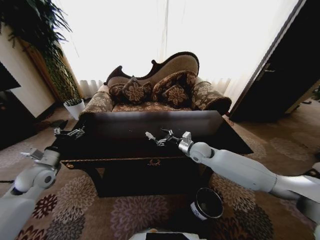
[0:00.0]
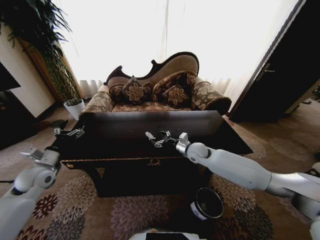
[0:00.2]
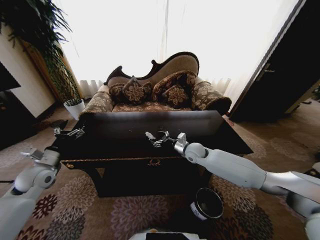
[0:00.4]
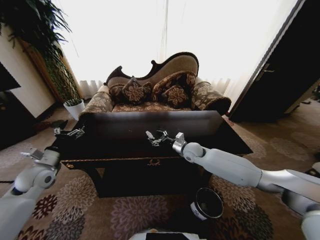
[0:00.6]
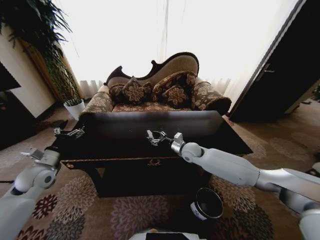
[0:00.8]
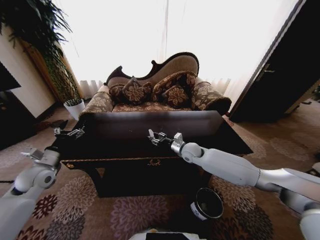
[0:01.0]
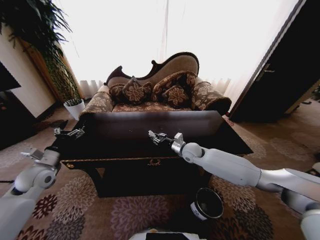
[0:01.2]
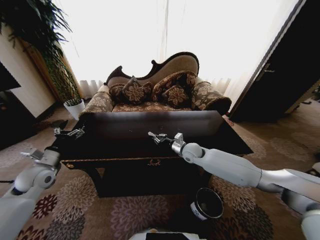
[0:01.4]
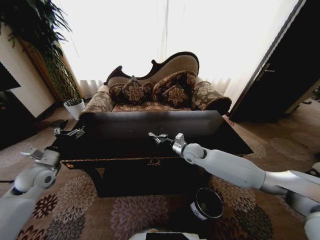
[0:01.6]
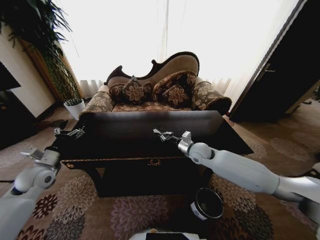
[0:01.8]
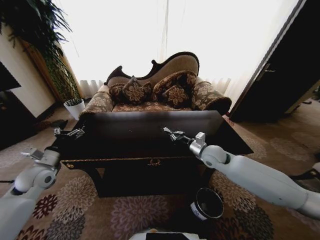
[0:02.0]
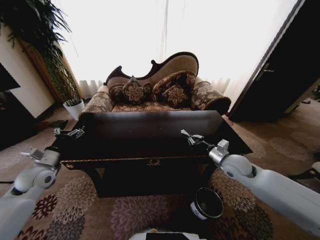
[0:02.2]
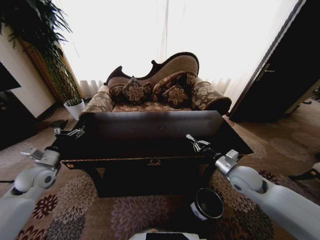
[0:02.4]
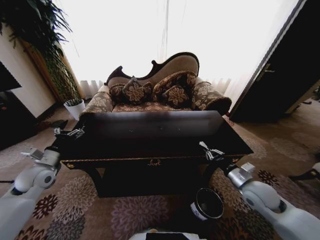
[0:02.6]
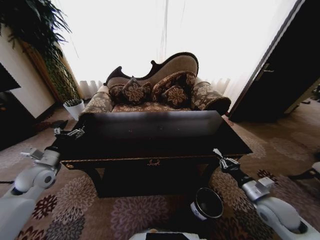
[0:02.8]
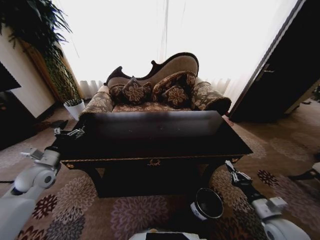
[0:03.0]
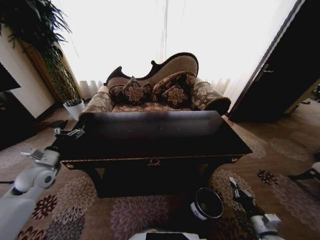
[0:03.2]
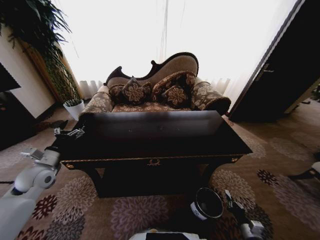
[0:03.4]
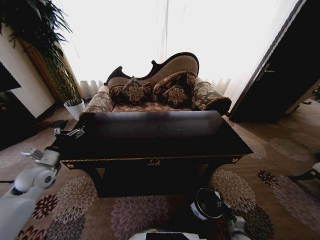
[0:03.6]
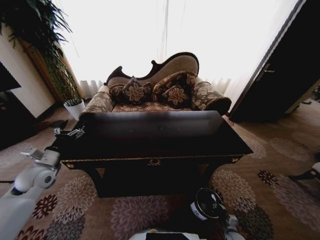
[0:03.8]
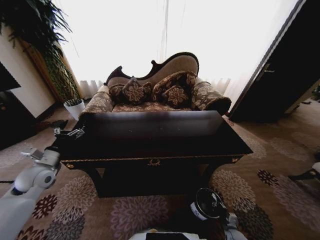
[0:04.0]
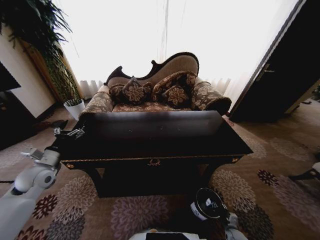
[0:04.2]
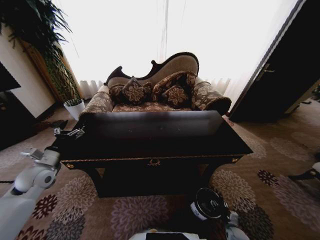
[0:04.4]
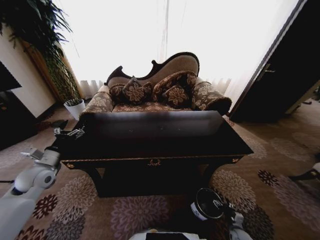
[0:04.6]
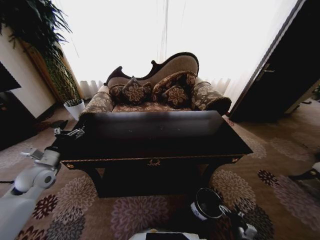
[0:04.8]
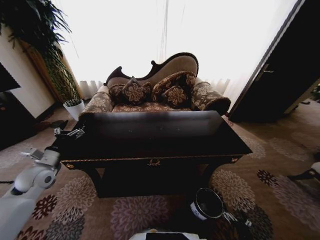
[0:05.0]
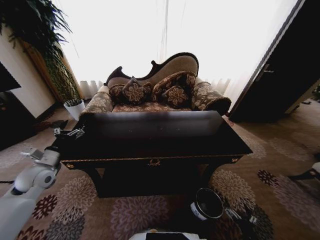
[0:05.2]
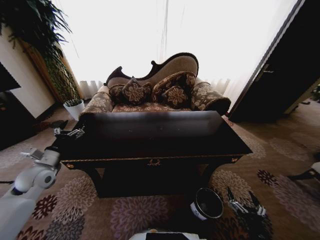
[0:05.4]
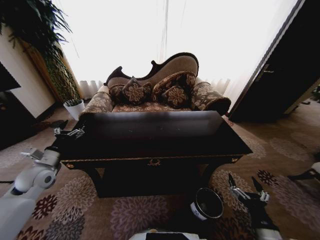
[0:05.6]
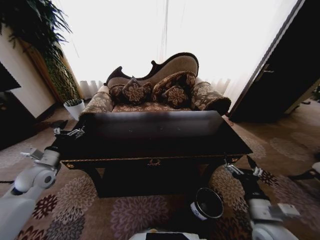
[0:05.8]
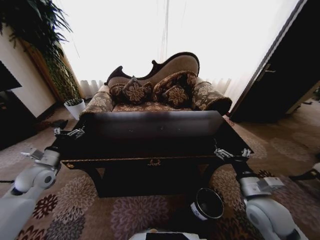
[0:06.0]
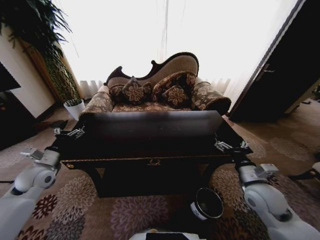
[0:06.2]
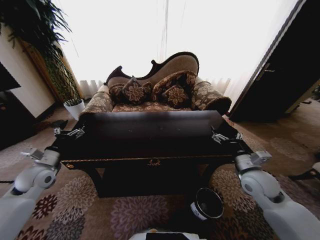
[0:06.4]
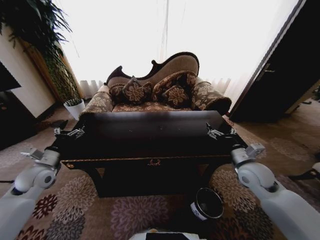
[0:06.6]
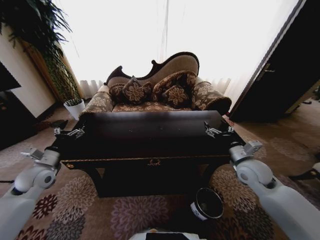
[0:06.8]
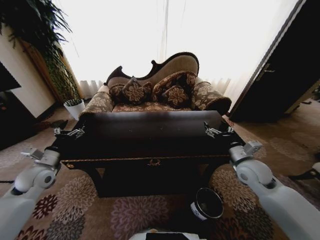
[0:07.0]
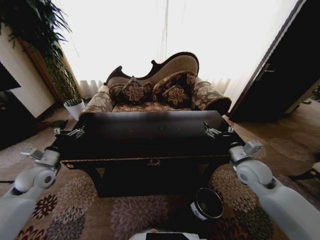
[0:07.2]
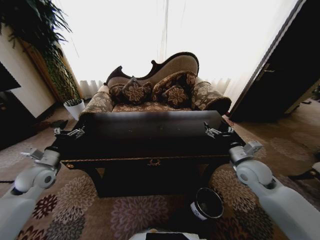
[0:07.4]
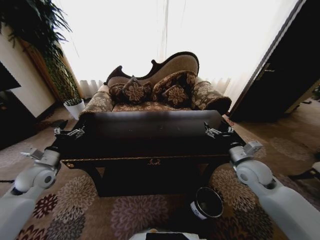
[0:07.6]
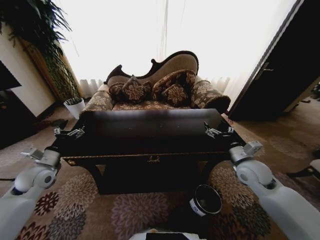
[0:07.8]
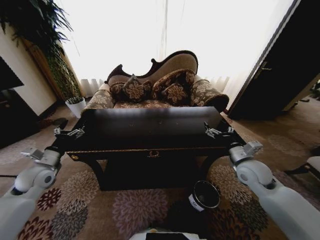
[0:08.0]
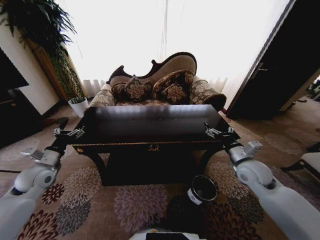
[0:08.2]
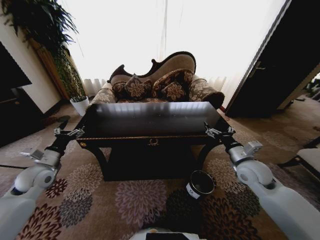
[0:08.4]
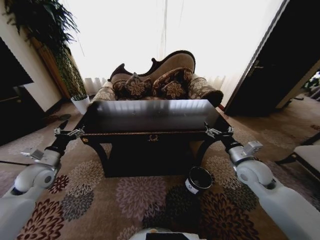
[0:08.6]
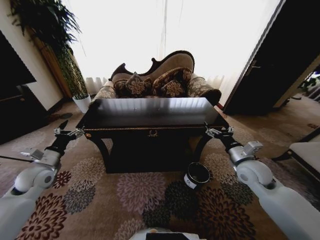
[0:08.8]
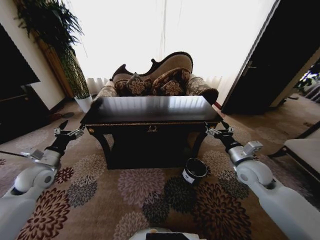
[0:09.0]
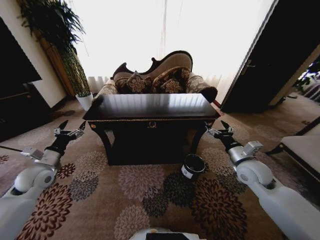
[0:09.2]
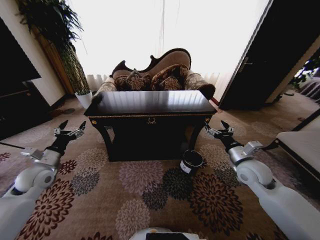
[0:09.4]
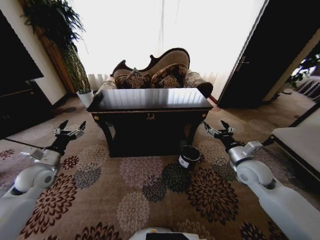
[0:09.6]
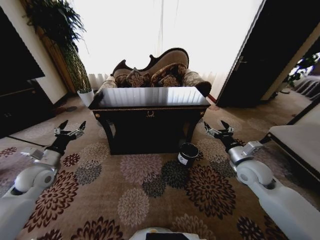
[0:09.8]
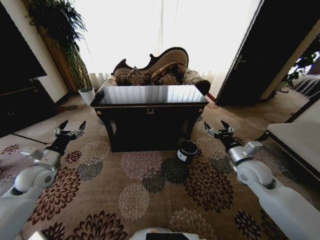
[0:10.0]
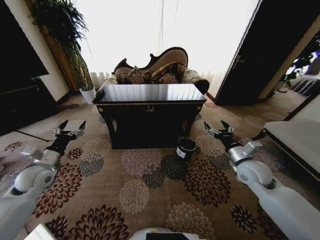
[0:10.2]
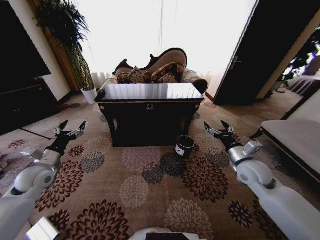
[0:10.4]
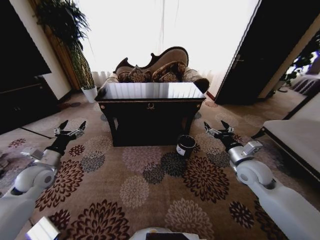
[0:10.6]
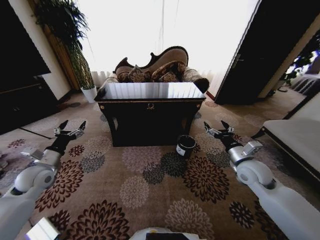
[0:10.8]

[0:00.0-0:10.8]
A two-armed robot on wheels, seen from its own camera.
Task of the whole recording: Move to the front of the table and place the trash on the table into the trash bin.
0:00.0 to 0:01.6: The right gripper closes its fingers.
0:01.6 to 0:03.0: The right gripper moves backward and to the right, some 35 cm.
0:03.0 to 0:04.6: The right gripper heads downward, covering approximately 30 cm, and opens its fingers.
0:04.6 to 0:06.2: The right gripper travels upward by approximately 40 cm.
0:06.2 to 0:07.8: The right gripper travels forward by roughly 10 cm.

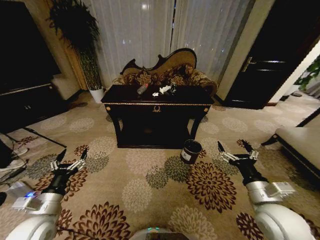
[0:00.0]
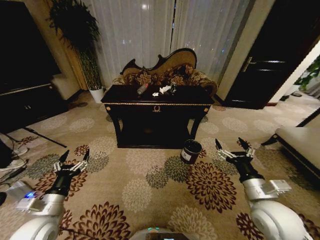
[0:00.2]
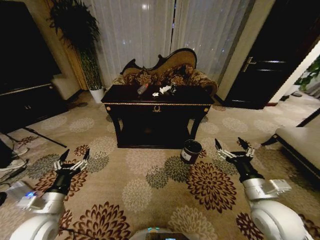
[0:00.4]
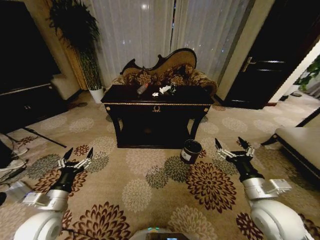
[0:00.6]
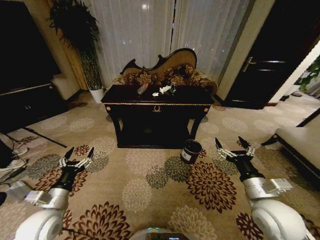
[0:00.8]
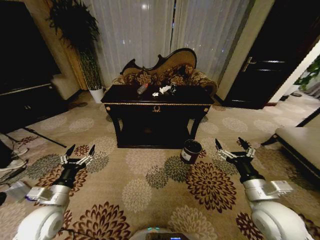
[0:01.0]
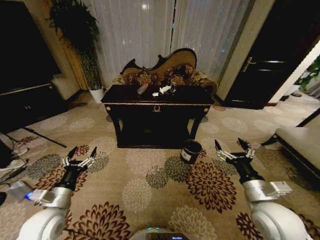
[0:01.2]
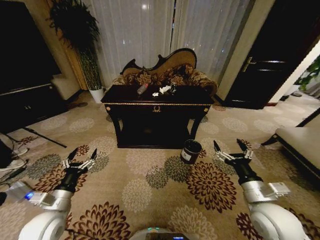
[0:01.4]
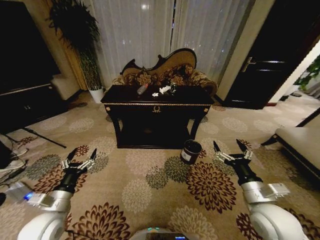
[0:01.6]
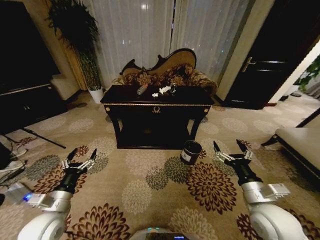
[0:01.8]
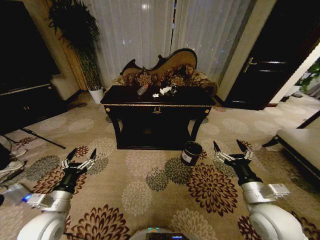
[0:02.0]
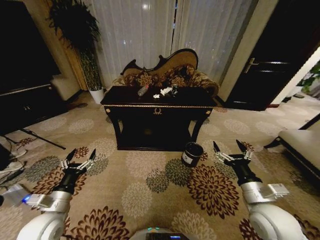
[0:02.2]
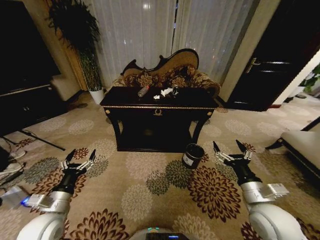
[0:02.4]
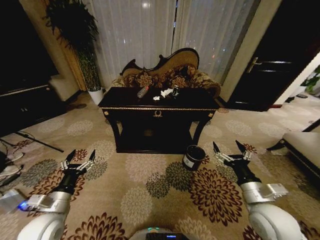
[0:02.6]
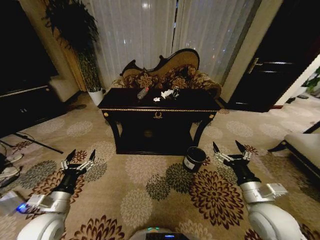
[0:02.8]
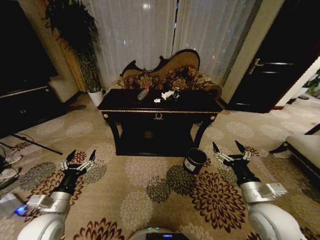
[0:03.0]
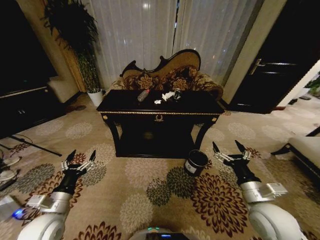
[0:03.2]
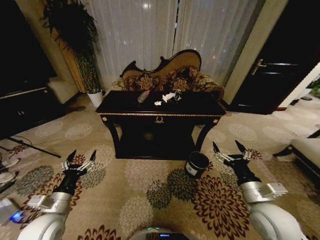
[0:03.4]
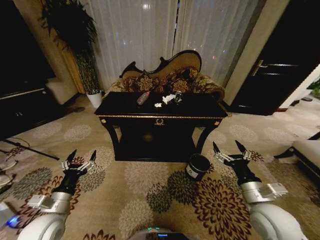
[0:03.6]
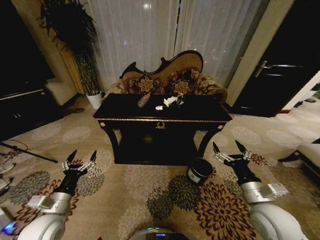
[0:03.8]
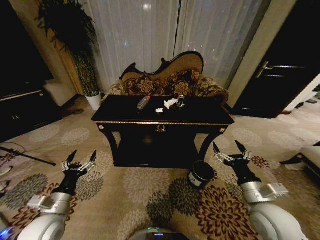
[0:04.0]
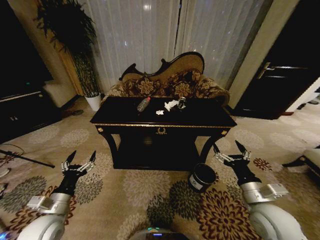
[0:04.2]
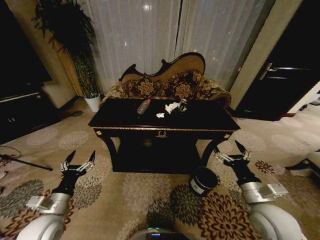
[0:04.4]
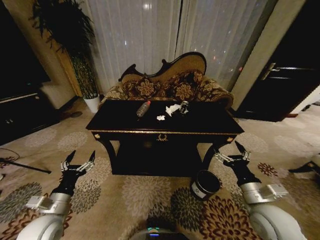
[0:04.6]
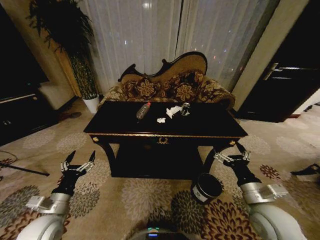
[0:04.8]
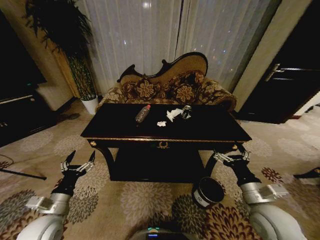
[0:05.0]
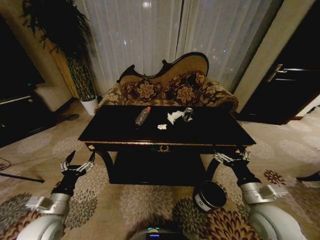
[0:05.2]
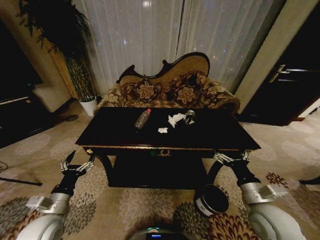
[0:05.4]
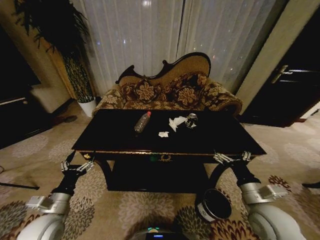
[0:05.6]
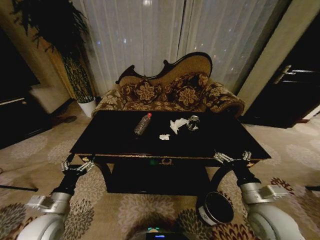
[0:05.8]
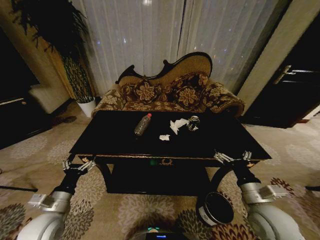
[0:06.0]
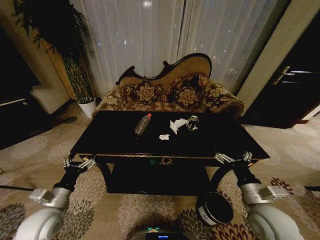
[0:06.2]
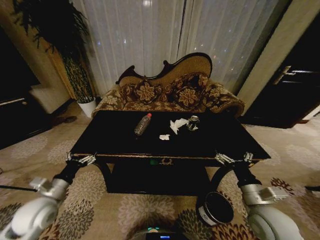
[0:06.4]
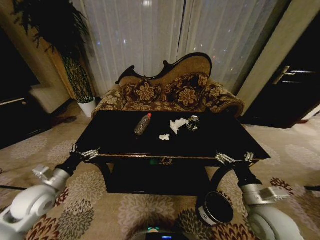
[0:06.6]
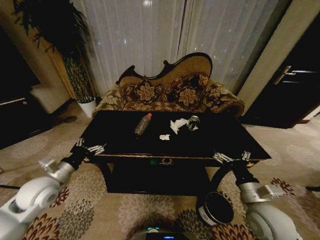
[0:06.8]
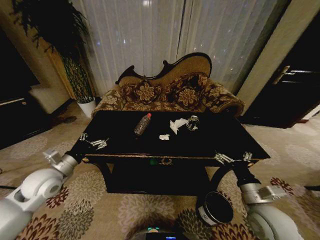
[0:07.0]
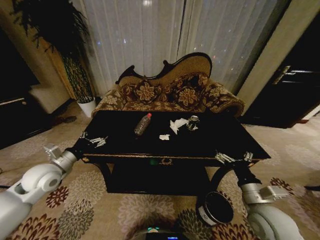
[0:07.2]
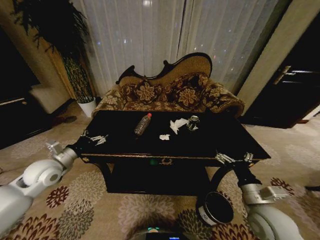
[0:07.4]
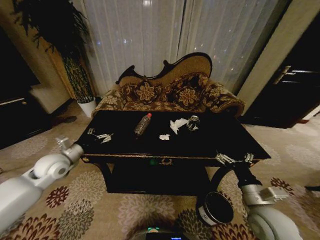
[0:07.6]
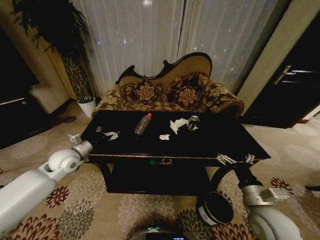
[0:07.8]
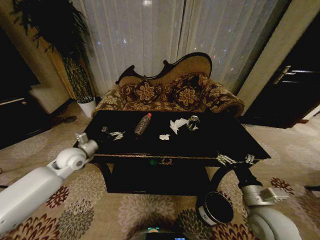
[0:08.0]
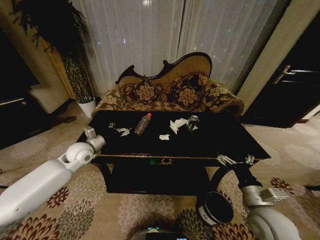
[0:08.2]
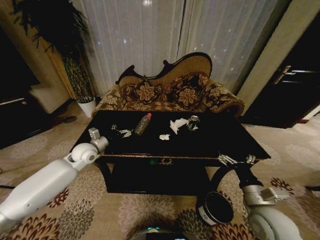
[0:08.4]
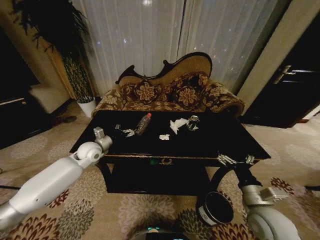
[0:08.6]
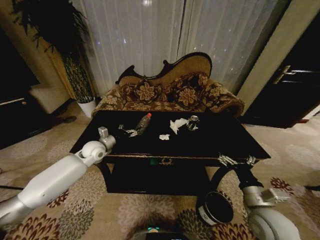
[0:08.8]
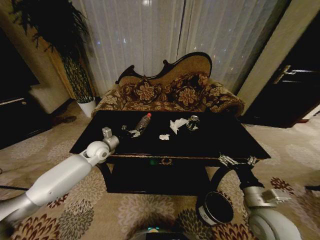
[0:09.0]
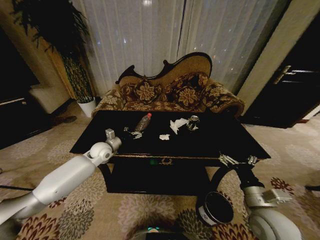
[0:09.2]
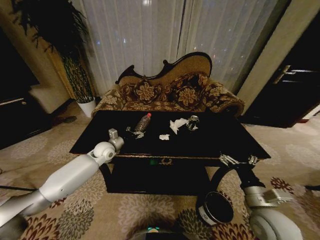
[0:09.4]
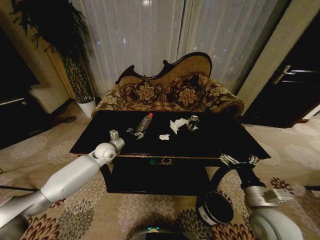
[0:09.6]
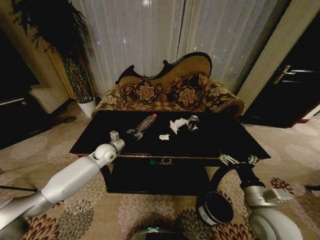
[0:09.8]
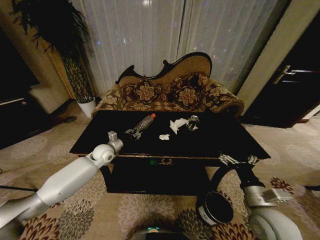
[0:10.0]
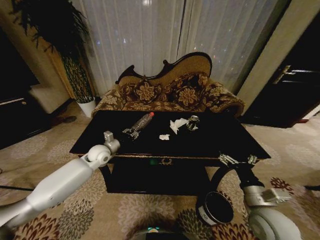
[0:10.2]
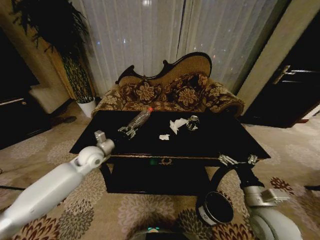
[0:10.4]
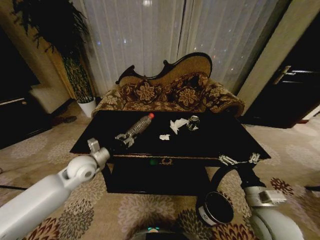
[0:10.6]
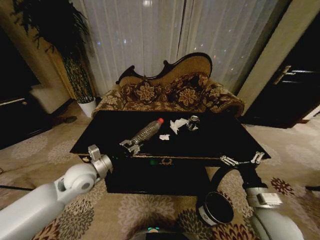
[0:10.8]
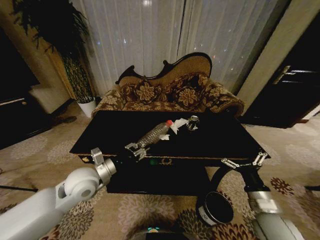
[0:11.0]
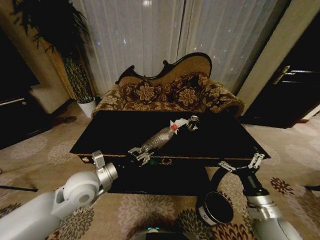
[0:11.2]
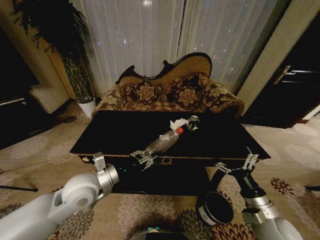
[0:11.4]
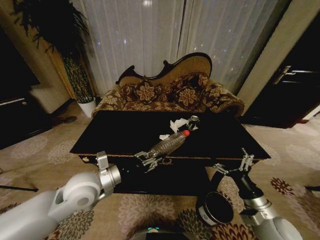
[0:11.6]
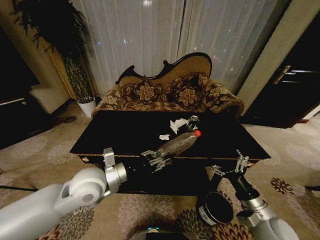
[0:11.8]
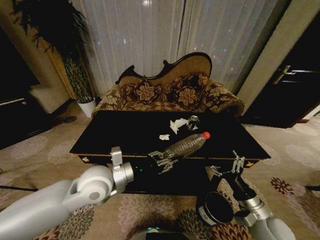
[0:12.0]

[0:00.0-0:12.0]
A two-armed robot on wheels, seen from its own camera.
Task of the whole recording: Move to the front of the table and place the trash on the table into the trash bin.
0:06.0 to 0:07.6: The left gripper shifts approximately 20 cm forward and upward.
0:07.6 to 0:09.0: The left gripper shifts some 15 cm to the right and forward.
0:09.0 to 0:10.4: The left gripper moves backward, roughly 5 cm, and closes up.
0:10.4 to 0:12.0: The left gripper is displaced backward, to the right and upward by about 20 cm.
